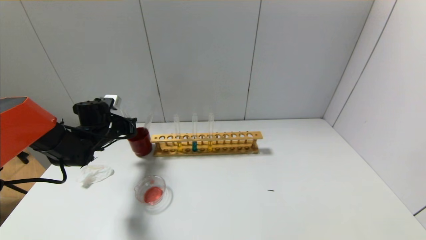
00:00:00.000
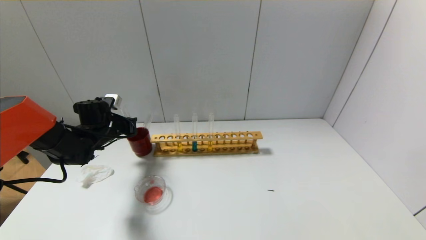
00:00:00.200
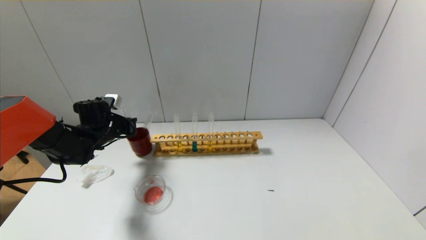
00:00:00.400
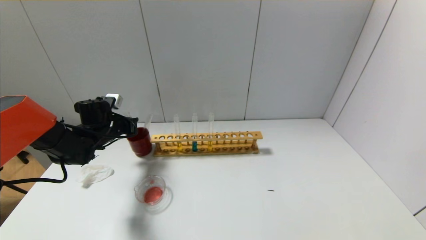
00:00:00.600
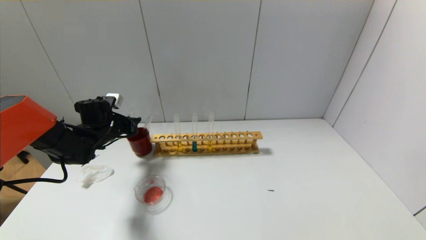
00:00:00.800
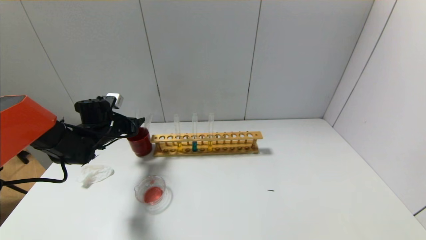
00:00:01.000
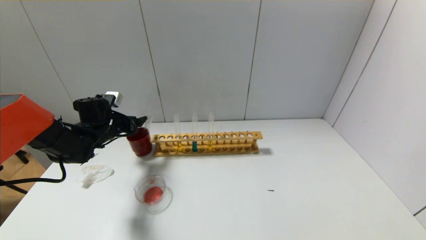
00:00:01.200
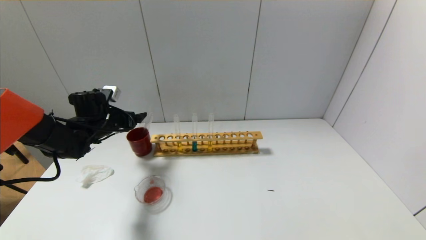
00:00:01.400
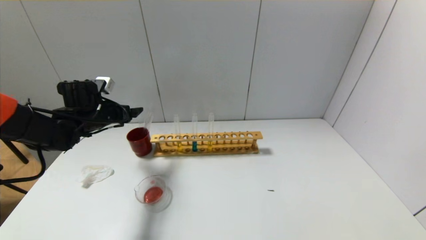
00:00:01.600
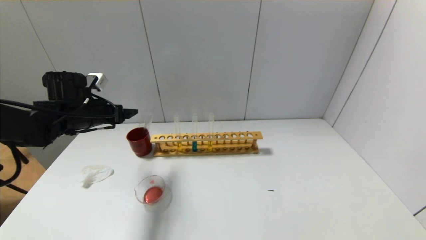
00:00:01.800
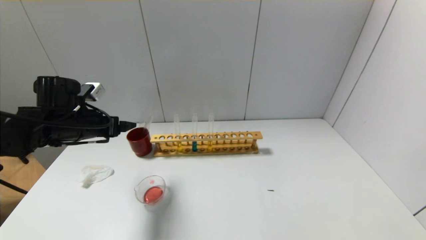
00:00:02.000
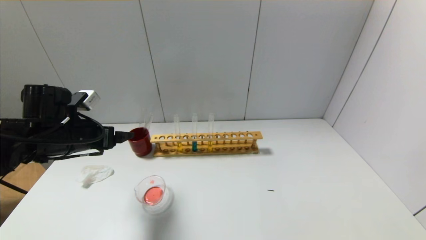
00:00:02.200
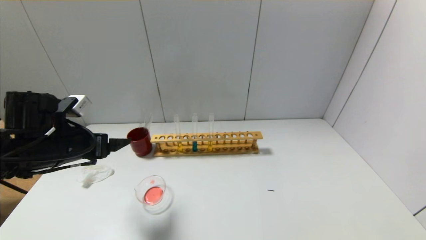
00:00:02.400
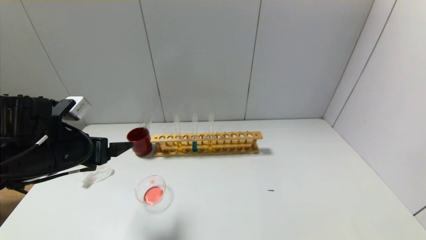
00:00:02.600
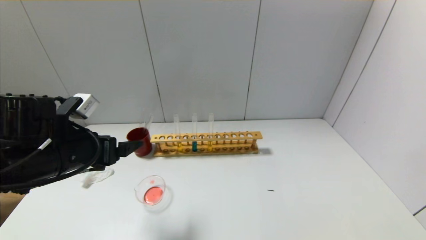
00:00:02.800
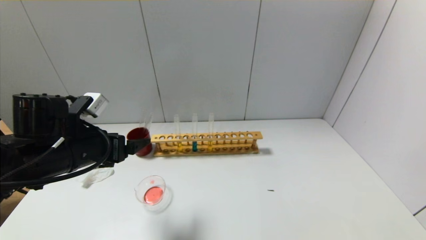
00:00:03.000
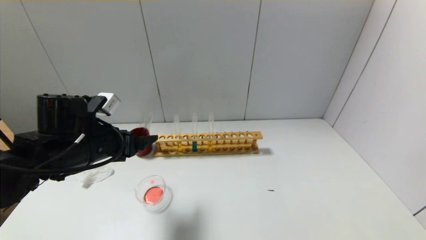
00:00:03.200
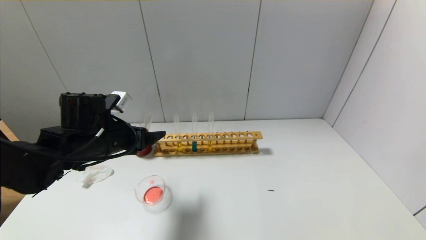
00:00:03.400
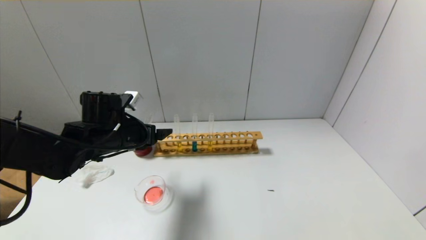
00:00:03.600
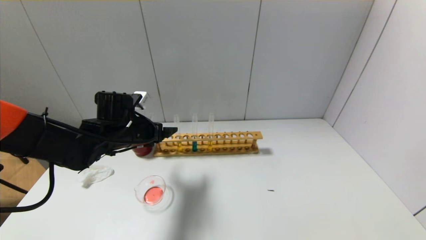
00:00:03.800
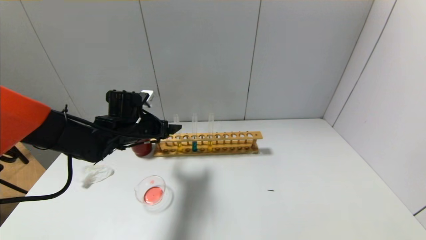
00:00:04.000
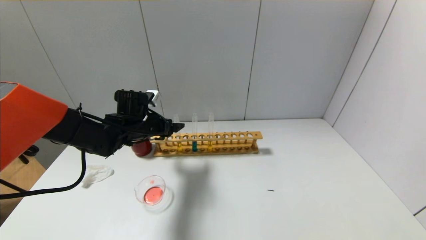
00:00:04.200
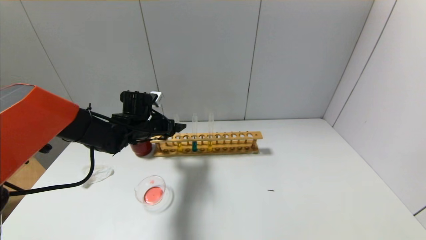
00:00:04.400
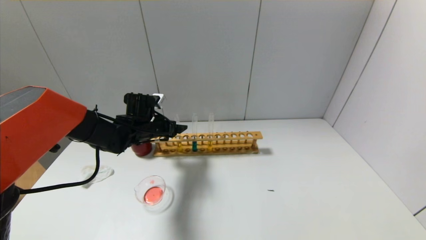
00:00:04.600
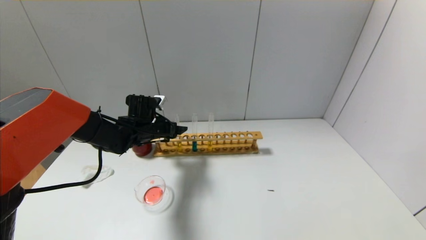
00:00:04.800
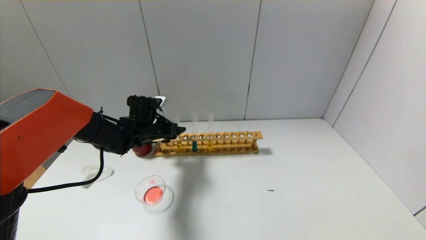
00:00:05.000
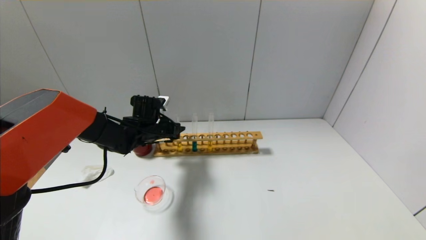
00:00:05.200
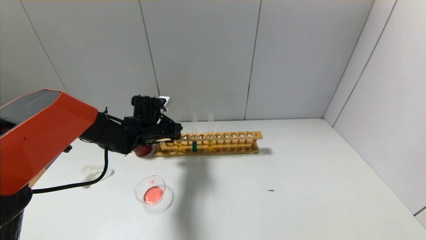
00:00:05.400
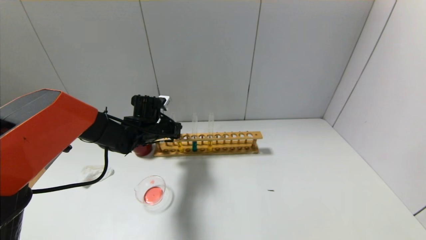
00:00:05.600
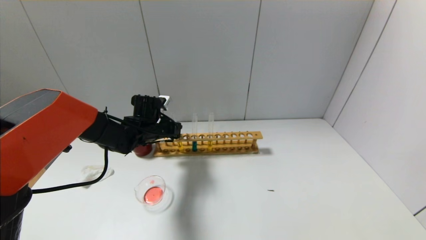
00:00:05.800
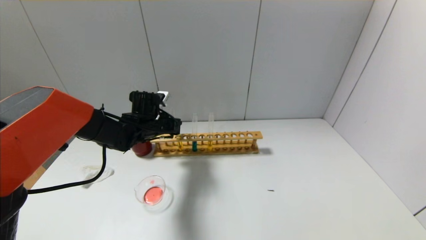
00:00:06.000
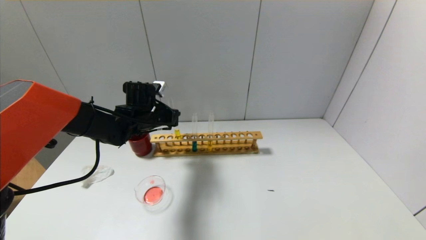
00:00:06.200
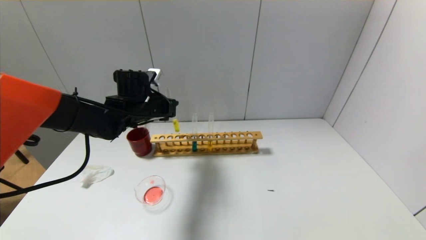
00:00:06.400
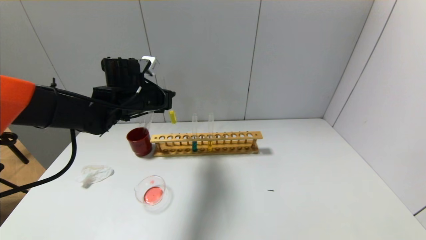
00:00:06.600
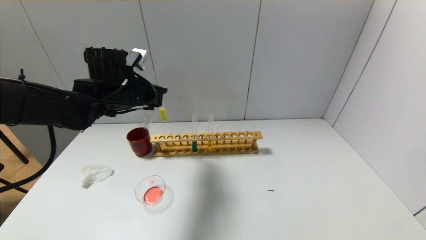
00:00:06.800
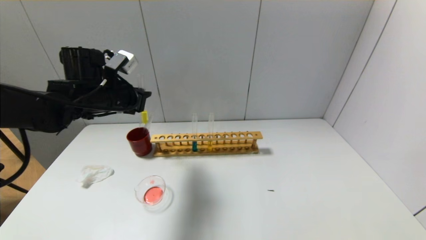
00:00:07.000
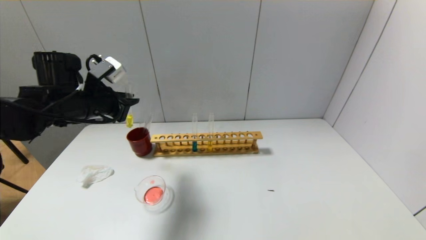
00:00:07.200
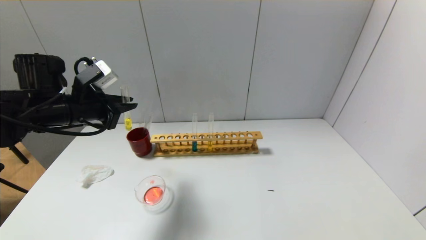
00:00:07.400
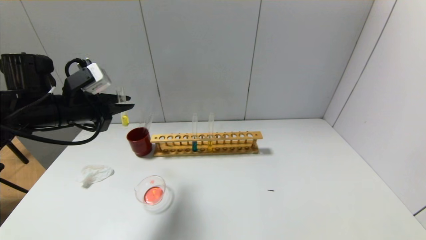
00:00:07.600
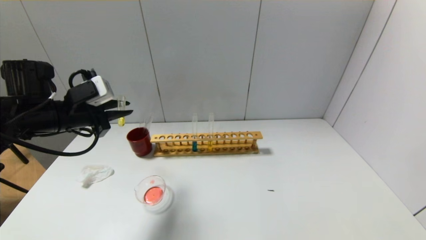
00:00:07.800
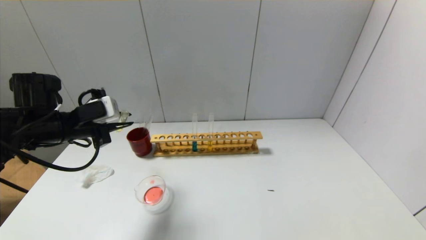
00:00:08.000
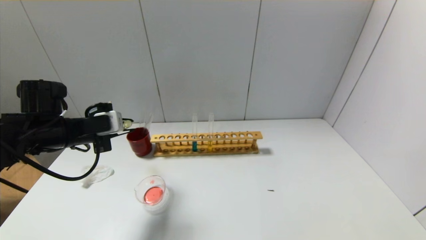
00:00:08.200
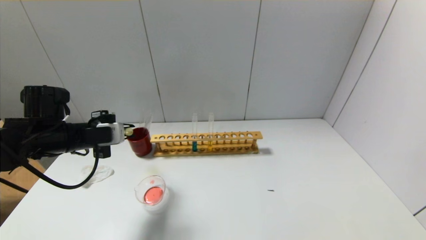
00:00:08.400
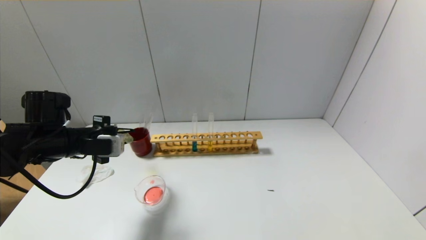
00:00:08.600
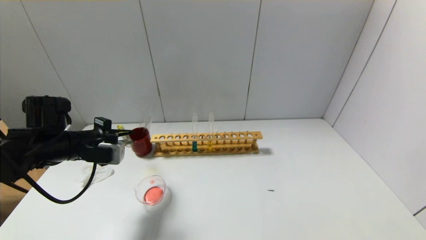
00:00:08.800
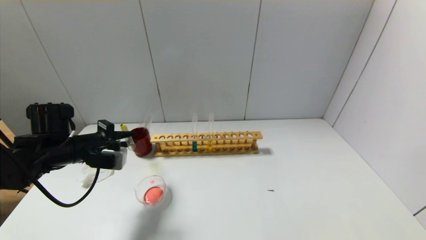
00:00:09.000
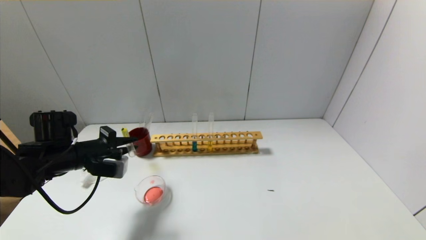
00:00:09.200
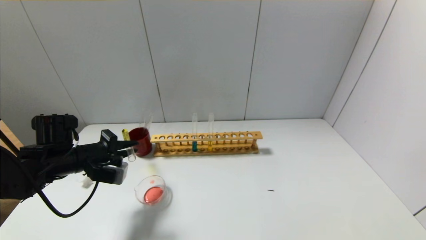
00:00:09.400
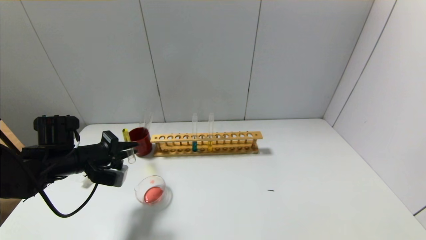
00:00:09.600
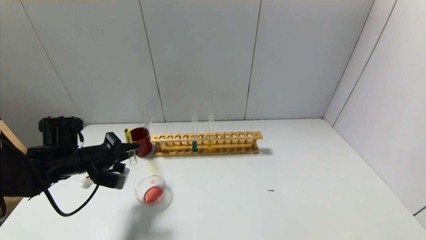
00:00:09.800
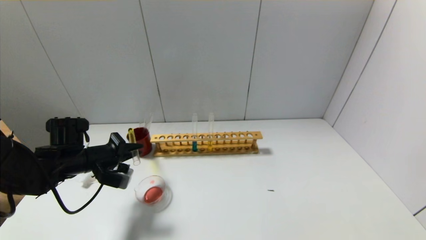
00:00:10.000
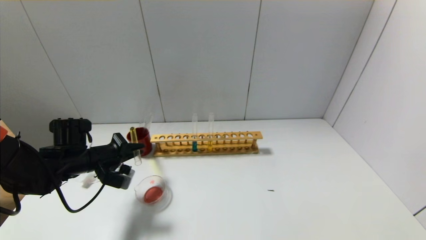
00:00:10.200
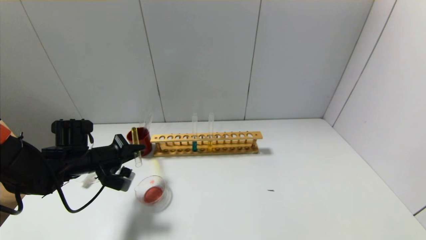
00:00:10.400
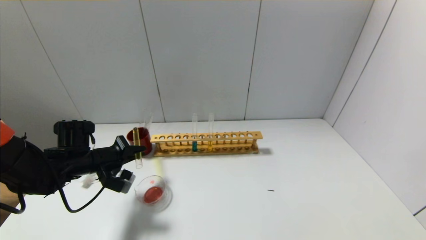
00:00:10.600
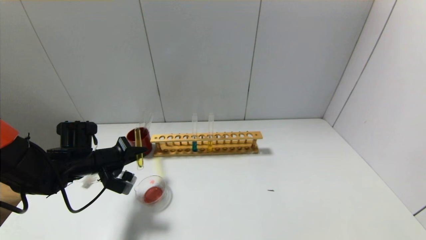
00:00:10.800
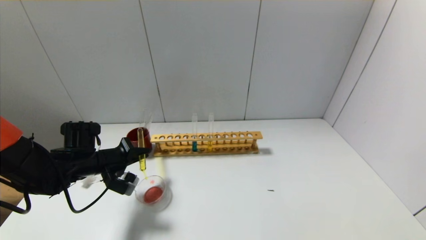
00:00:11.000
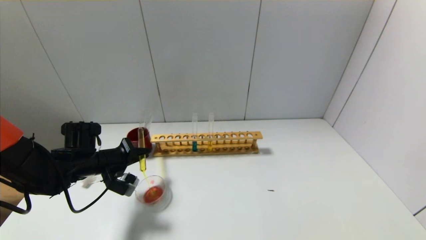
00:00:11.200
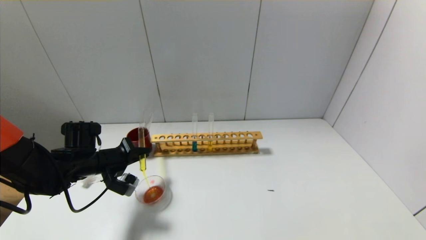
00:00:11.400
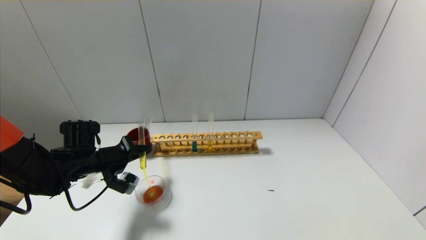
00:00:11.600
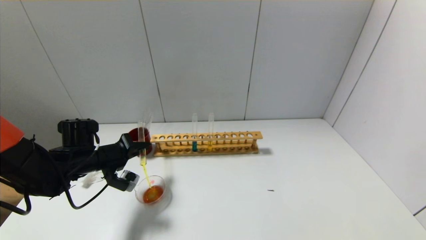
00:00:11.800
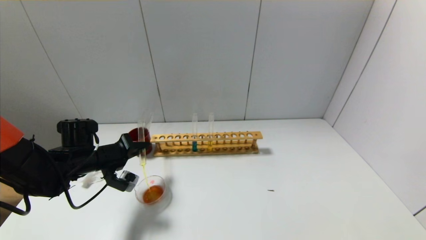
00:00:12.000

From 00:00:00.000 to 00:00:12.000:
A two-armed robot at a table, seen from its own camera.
Step, from 00:00:01.000 to 00:00:05.600: Grasp the yellow reagent with the left gripper.
From 00:00:00.000 to 00:00:01.600: The left gripper goes about 5 cm upward, and opens its fingers.
From 00:00:01.600 to 00:00:03.000: The left gripper heads backward, covering roughly 15 cm.
From 00:00:03.000 to 00:00:04.400: The left gripper travels forward by approximately 15 cm.
From 00:00:04.400 to 00:00:06.000: The left gripper closes up.
From 00:00:06.000 to 00:00:07.600: The left gripper shifts approximately 20 cm to the left, backward and upward.
From 00:00:07.600 to 00:00:09.000: The left gripper travels downward by some 10 cm.
From 00:00:09.000 to 00:00:10.400: The left gripper goes about 5 cm downward.
From 00:00:10.400 to 00:00:12.000: The grippers stay close to where they were, moving slightly.

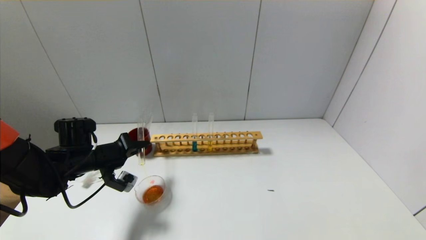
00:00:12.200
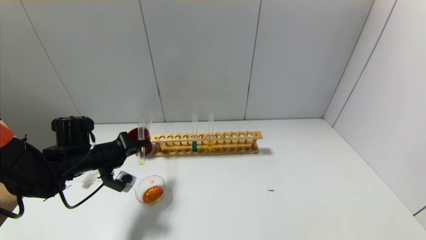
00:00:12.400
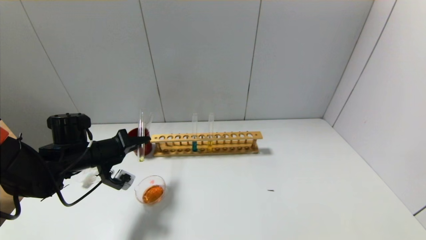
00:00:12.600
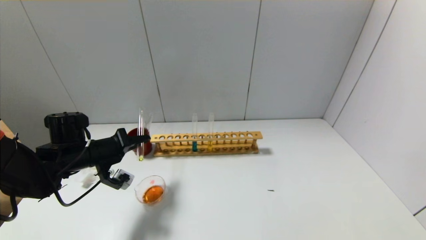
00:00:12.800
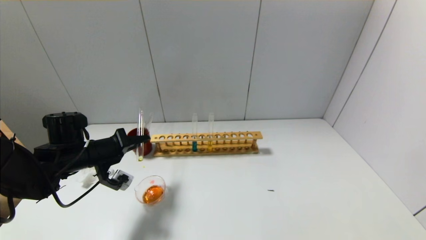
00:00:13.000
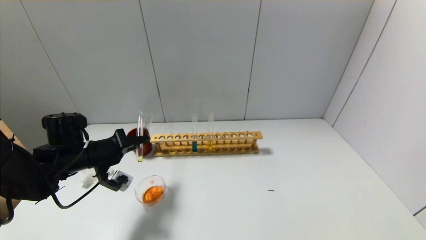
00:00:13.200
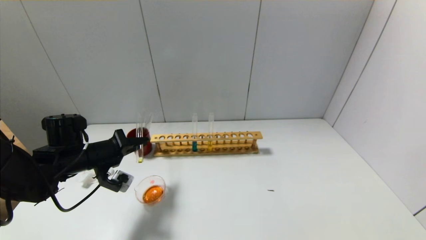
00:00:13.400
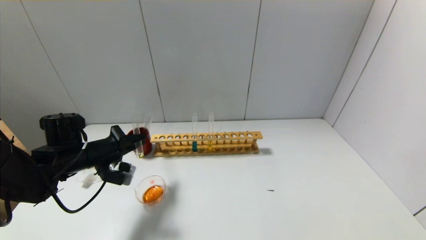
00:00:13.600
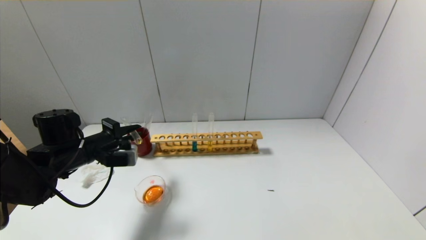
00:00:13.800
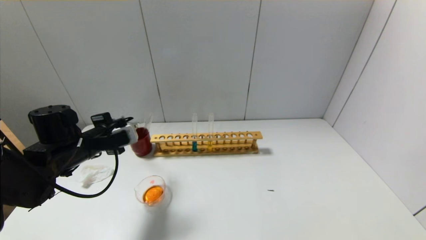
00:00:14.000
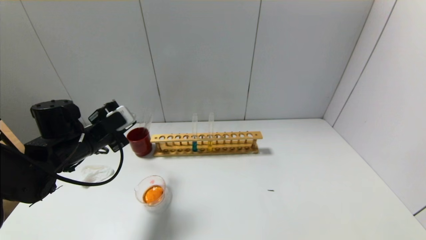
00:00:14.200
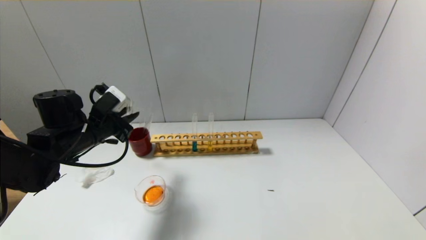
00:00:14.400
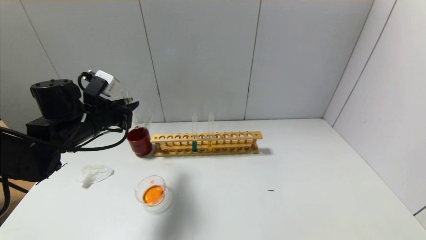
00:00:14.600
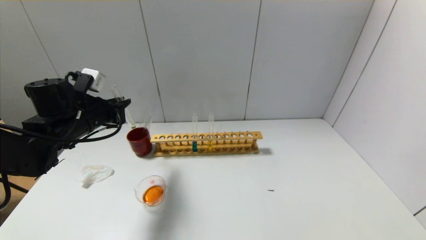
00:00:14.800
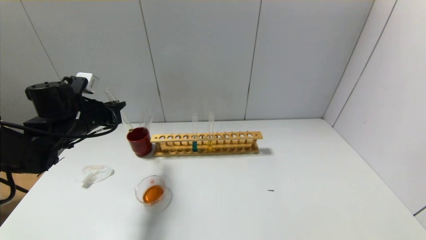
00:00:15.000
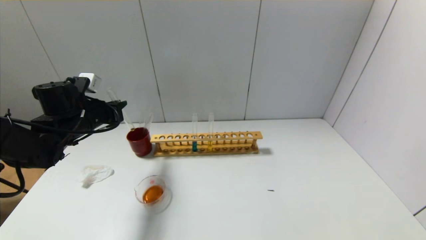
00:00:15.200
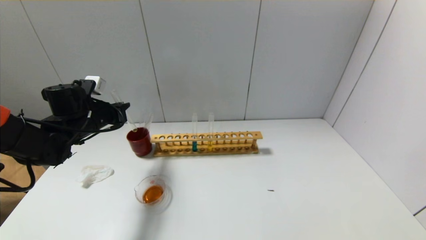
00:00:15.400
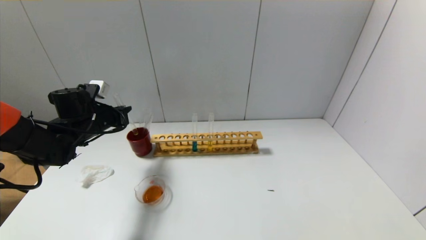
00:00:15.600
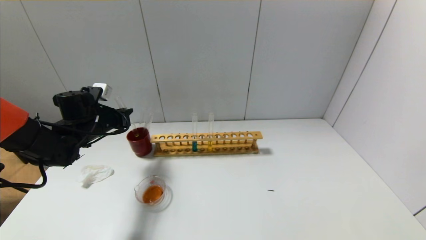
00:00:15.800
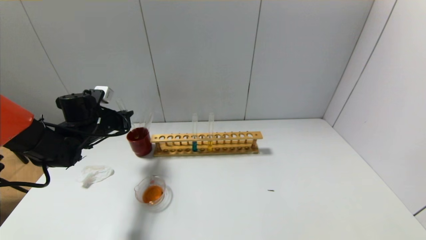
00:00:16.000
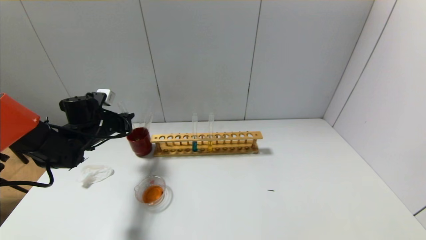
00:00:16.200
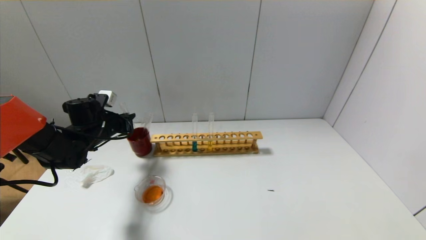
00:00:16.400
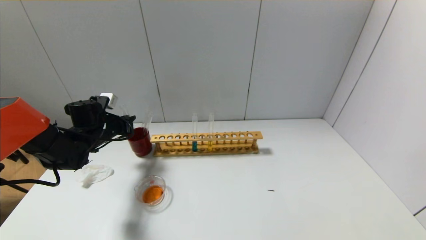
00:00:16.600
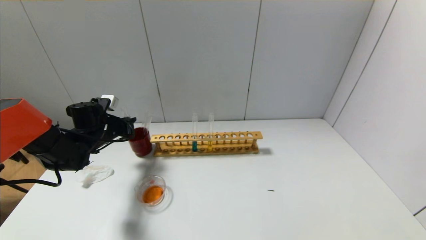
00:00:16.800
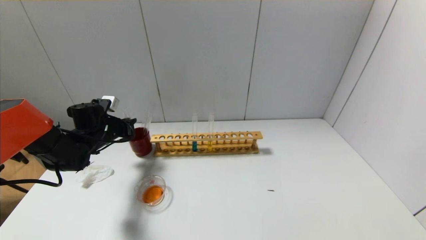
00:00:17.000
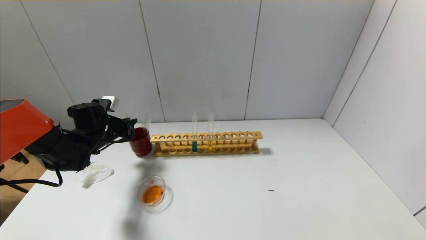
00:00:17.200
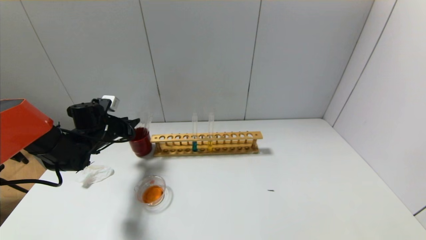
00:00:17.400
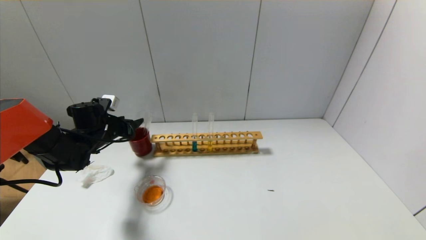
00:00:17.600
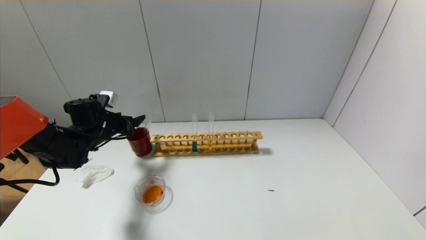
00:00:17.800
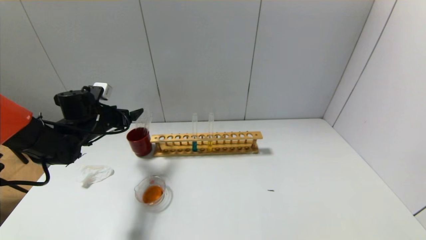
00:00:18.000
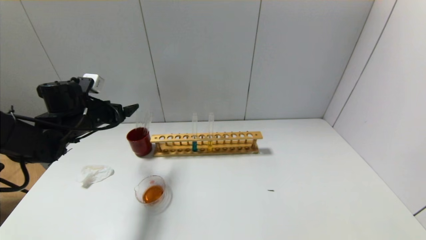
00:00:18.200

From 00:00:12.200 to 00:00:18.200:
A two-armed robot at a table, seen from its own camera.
Step, from 00:00:14.200 to 00:00:17.400: Place the test tube into the brown cup with the left gripper.
From 00:00:13.800 to 00:00:15.200: The left gripper travels forward by some 5 cm.
From 00:00:15.200 to 00:00:16.600: The left gripper heads downward, covering roughly 5 cm.
From 00:00:16.600 to 00:00:18.200: The left gripper goes approximately 5 cm upward, and opens up.
